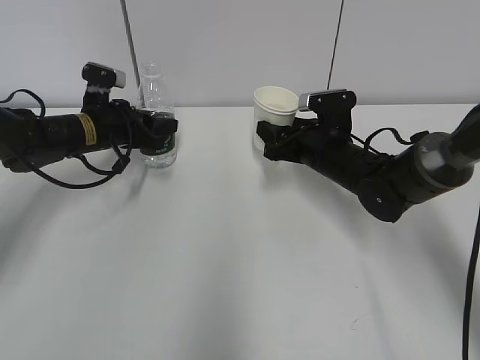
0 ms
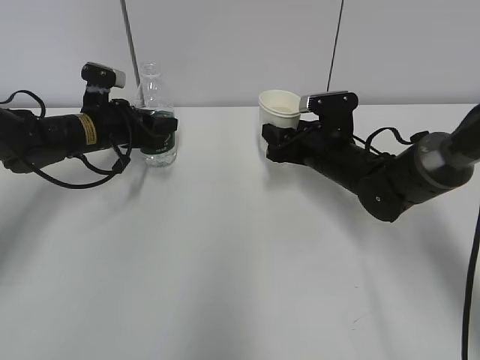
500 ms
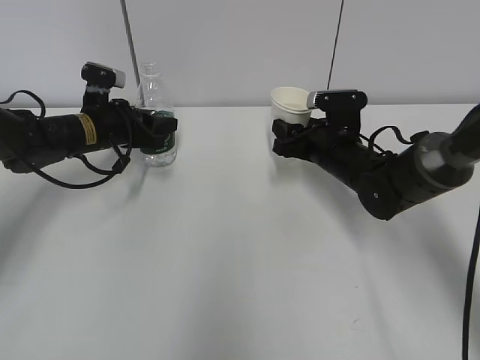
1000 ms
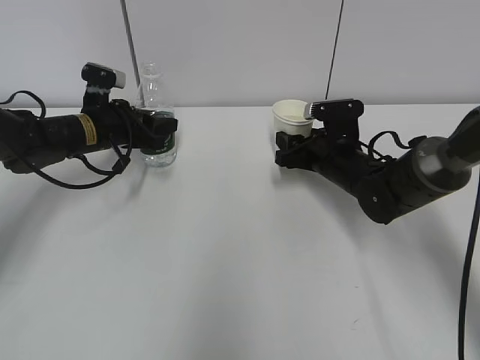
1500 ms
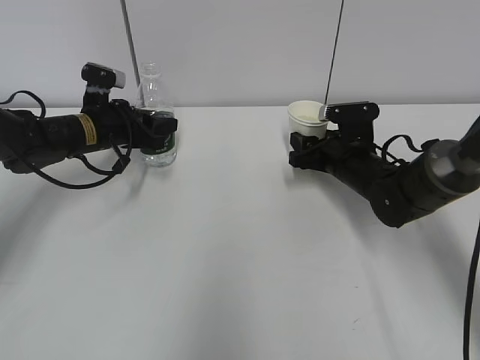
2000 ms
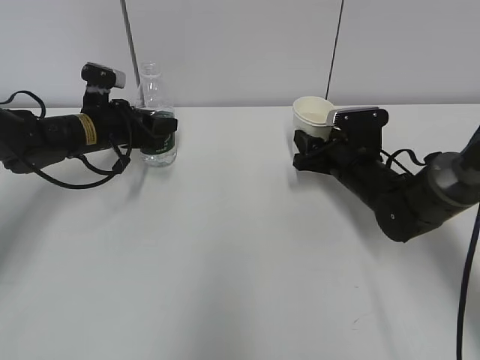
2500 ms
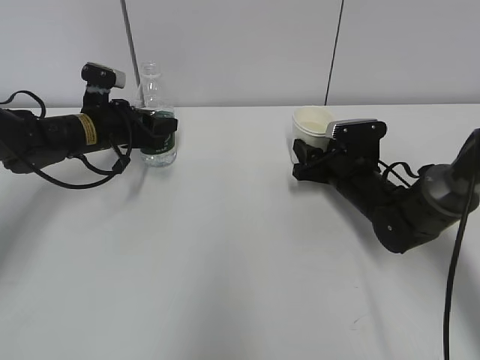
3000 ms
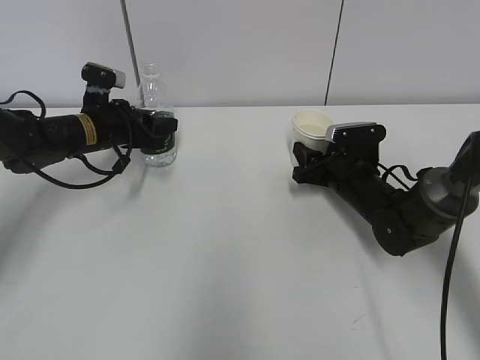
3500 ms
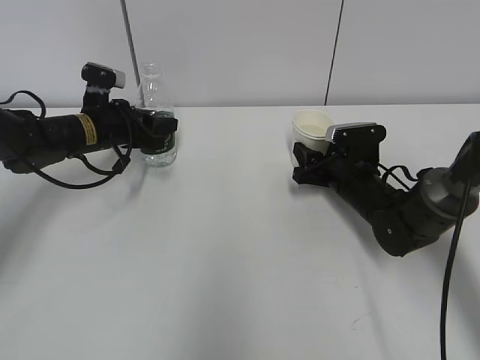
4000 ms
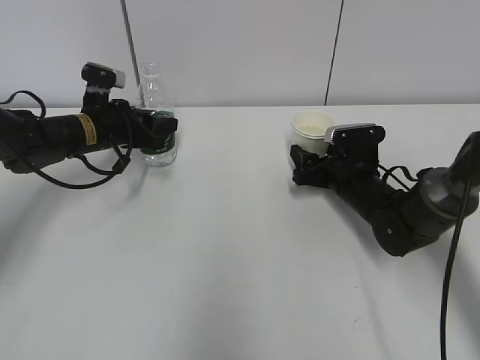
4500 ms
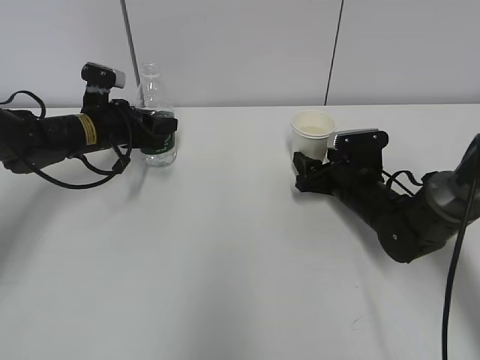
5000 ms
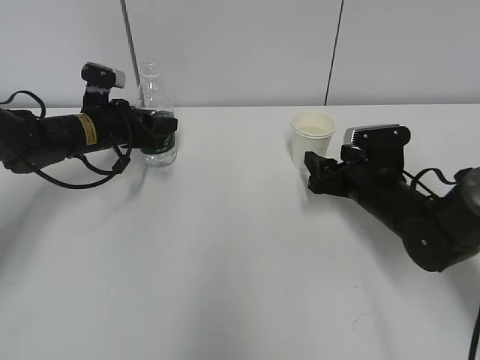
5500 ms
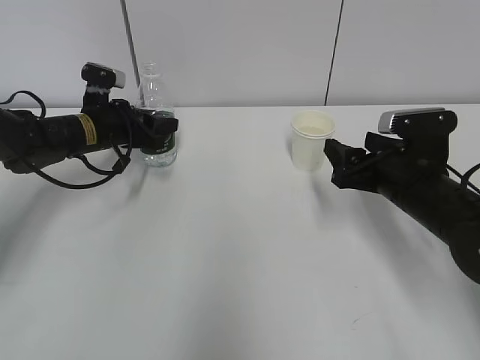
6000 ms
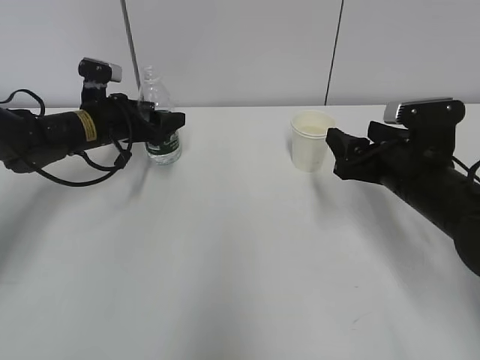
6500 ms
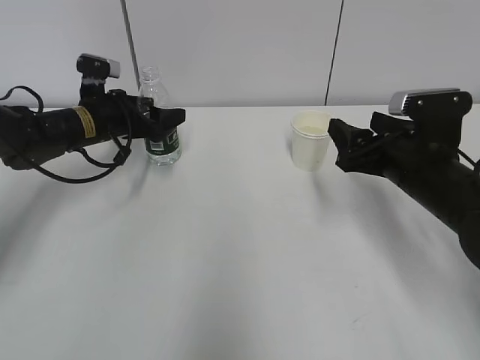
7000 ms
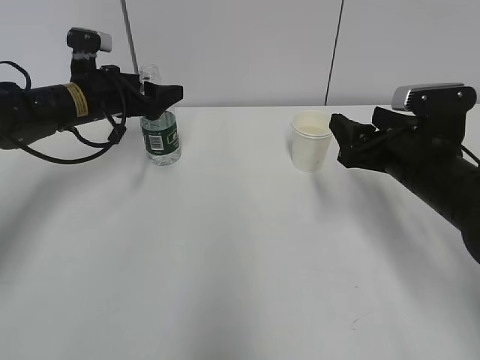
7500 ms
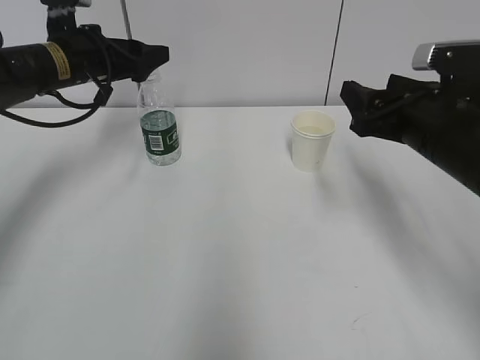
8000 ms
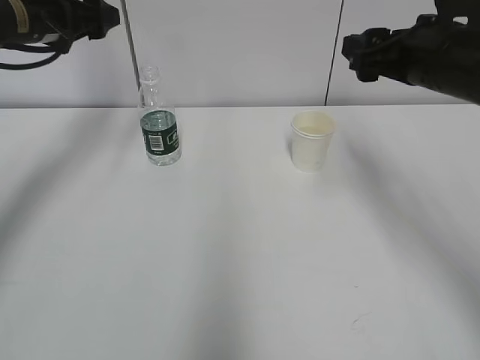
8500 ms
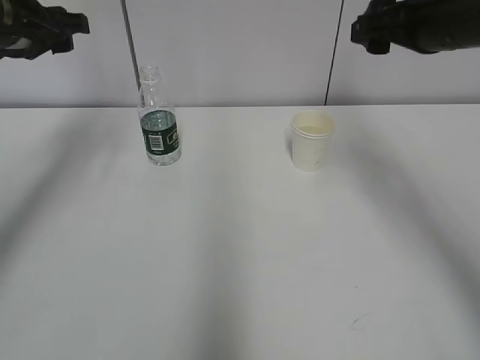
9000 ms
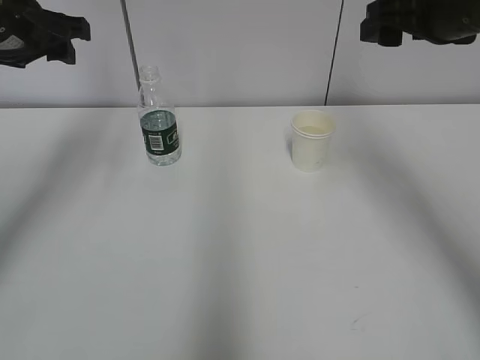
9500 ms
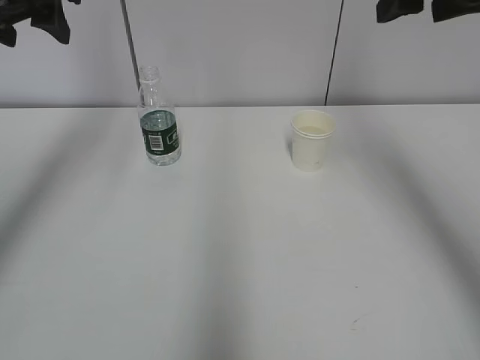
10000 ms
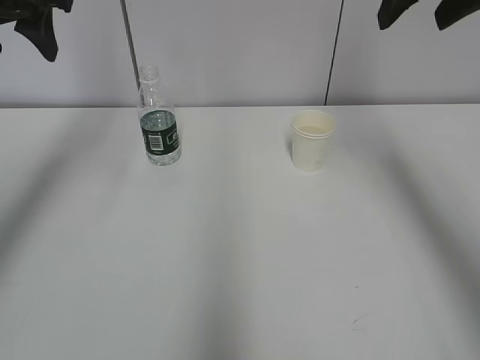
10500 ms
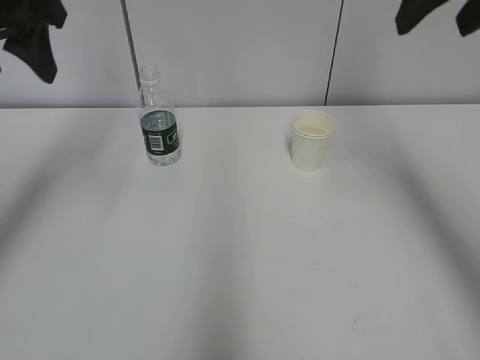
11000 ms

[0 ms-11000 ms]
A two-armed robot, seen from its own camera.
0 ms to 2000 ms: The grippers move only a little.
2000 ms to 3500 ms: The grippers make only small movements.
3500 ms to 5500 ms: The right gripper ends up roughly 5 cm from where it was, and opens.
5500 ms to 7500 ms: The right gripper moves upward and backward, approximately 10 cm. Meanwhile the left gripper opens its fingers.
7500 ms to 9000 ms: The grippers both shift upward by roughly 15 cm.
9000 ms to 11000 ms: The left gripper shifts roughly 10 cm backward and upward. The right gripper shifts roughly 10 cm upward.
